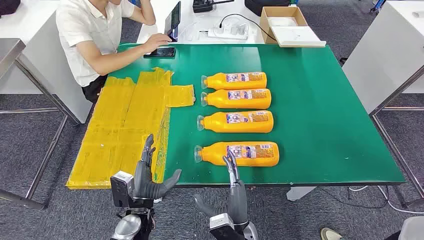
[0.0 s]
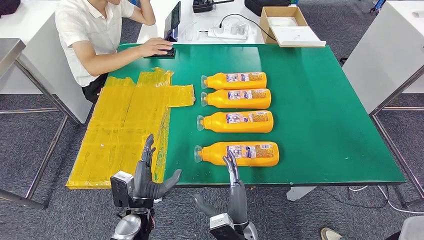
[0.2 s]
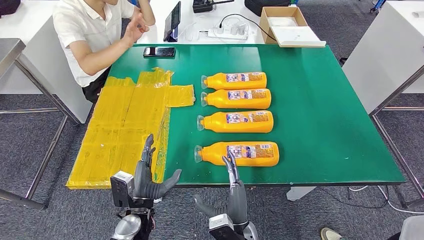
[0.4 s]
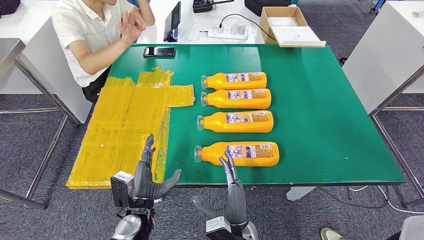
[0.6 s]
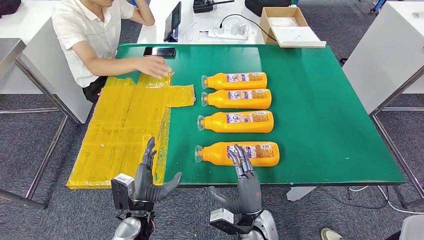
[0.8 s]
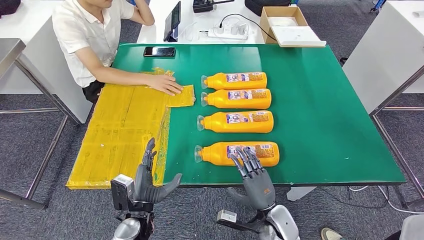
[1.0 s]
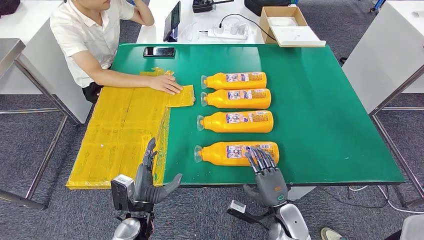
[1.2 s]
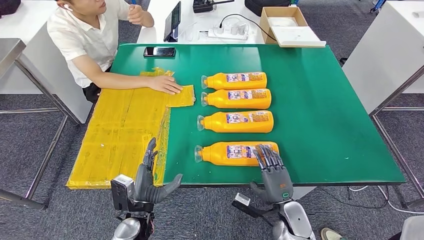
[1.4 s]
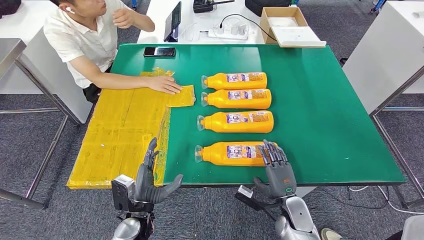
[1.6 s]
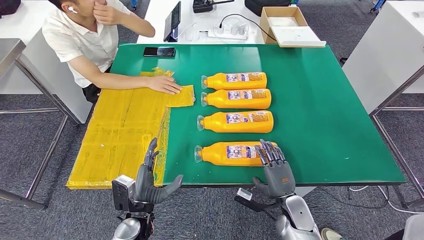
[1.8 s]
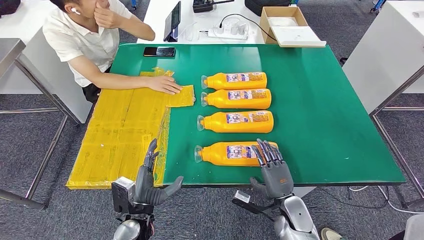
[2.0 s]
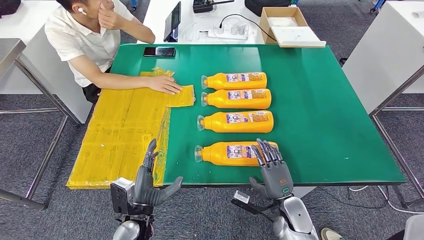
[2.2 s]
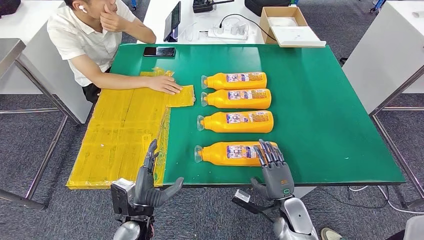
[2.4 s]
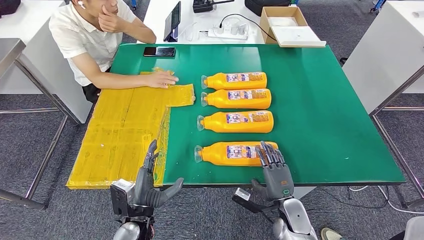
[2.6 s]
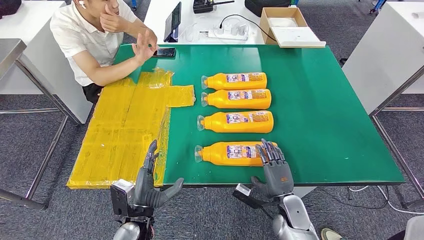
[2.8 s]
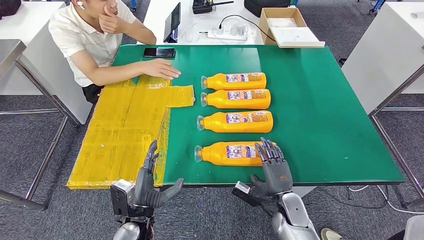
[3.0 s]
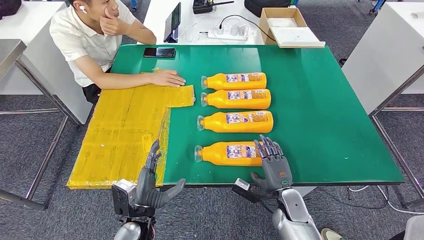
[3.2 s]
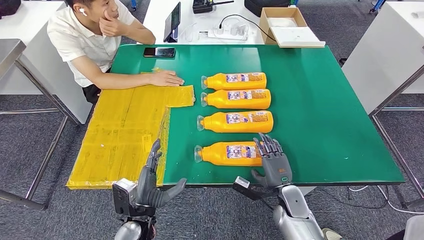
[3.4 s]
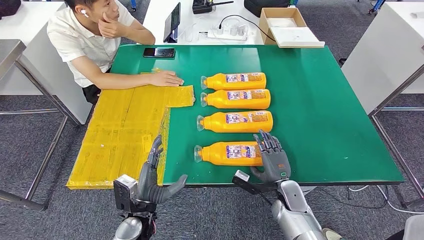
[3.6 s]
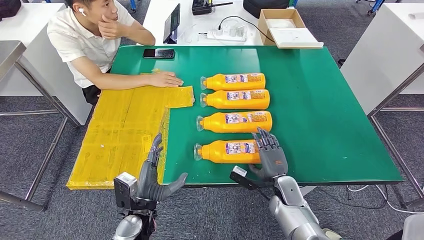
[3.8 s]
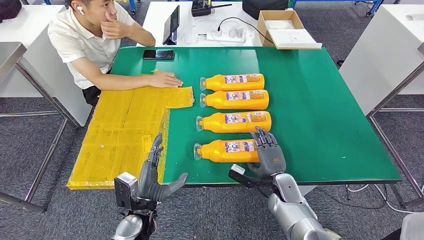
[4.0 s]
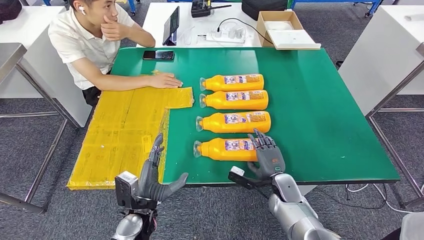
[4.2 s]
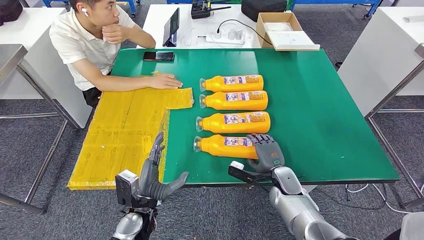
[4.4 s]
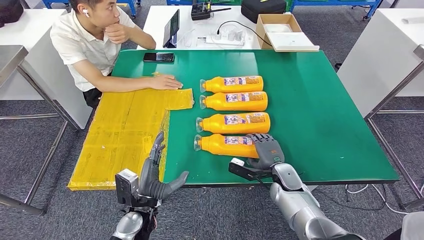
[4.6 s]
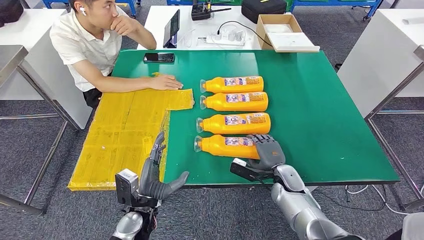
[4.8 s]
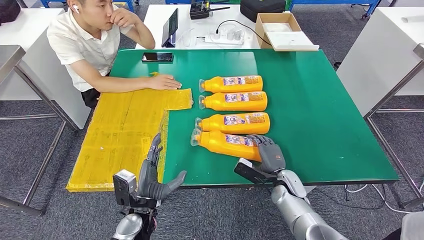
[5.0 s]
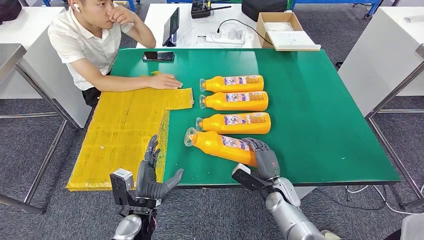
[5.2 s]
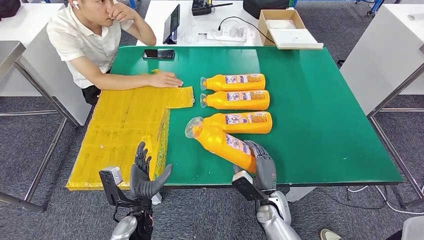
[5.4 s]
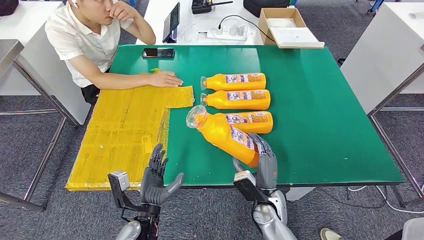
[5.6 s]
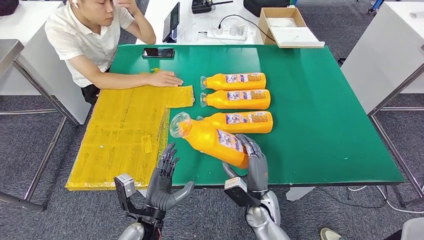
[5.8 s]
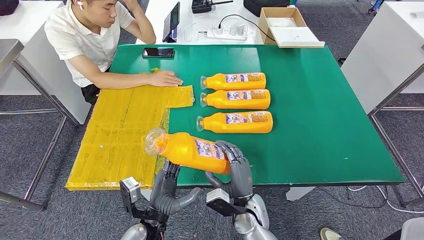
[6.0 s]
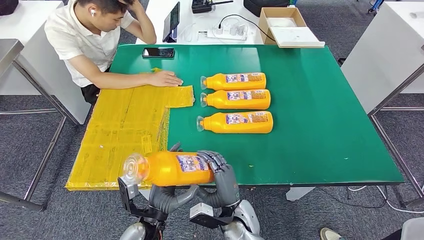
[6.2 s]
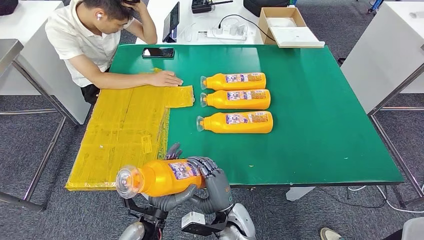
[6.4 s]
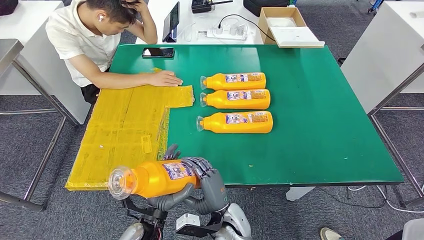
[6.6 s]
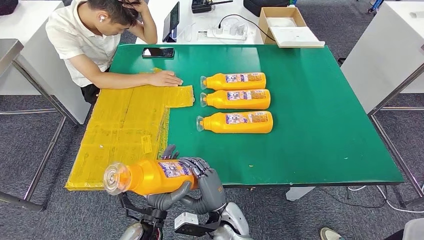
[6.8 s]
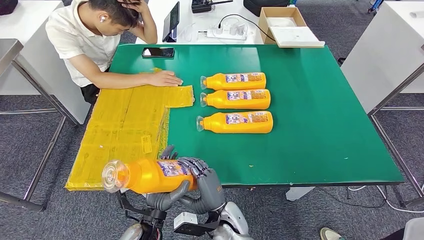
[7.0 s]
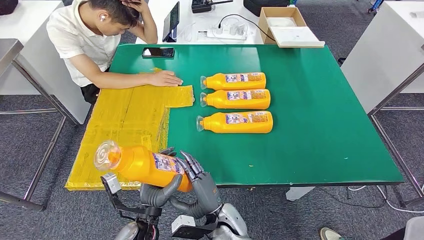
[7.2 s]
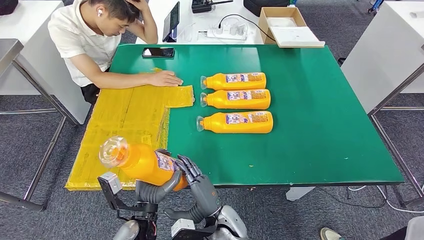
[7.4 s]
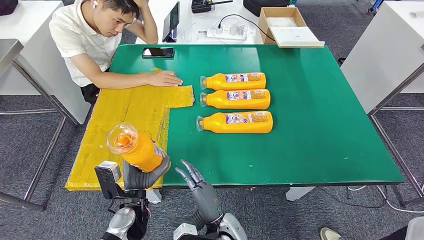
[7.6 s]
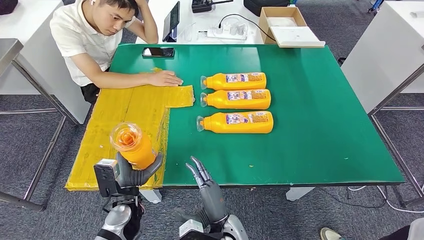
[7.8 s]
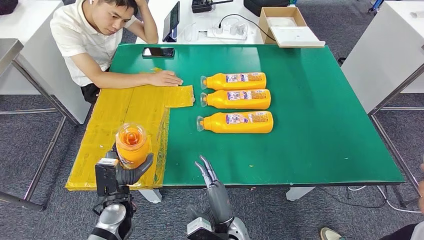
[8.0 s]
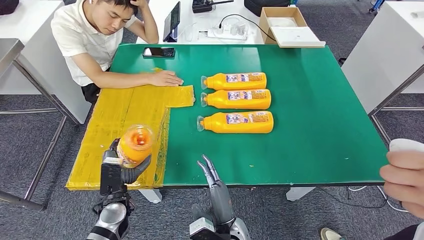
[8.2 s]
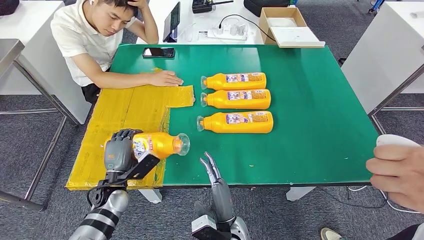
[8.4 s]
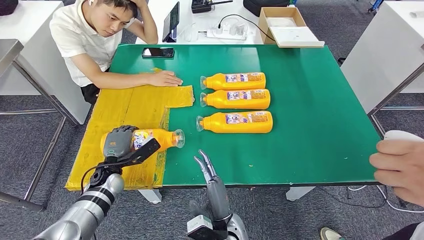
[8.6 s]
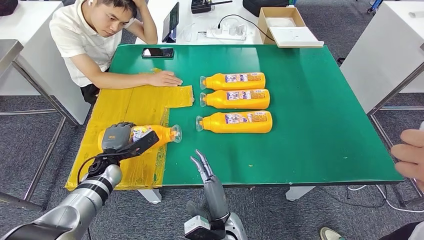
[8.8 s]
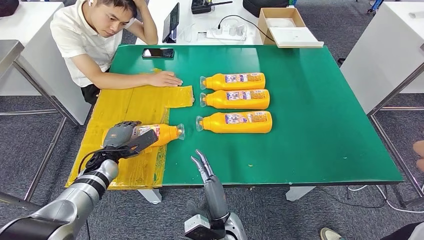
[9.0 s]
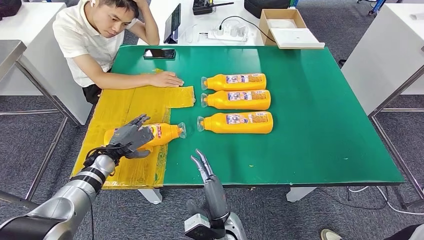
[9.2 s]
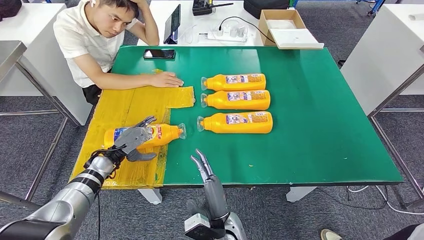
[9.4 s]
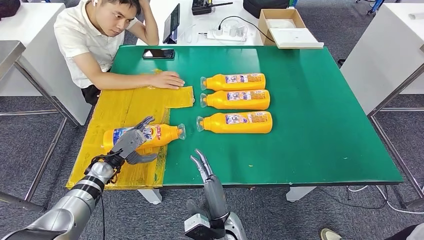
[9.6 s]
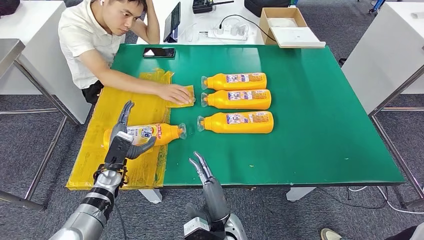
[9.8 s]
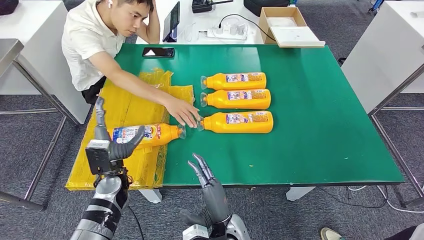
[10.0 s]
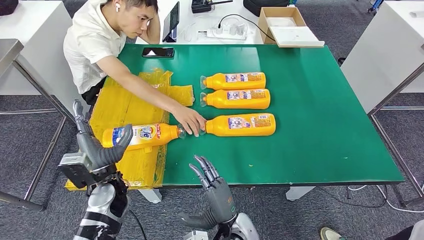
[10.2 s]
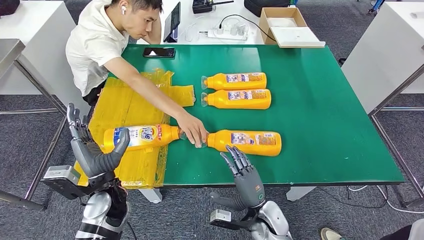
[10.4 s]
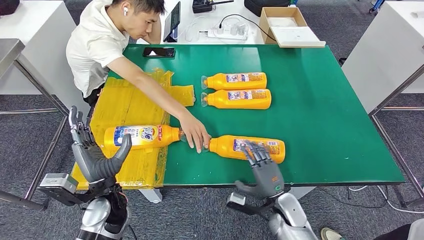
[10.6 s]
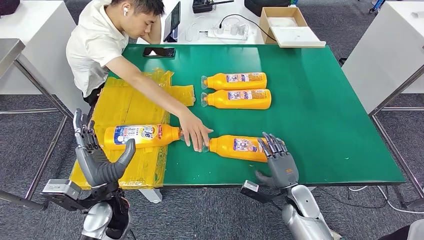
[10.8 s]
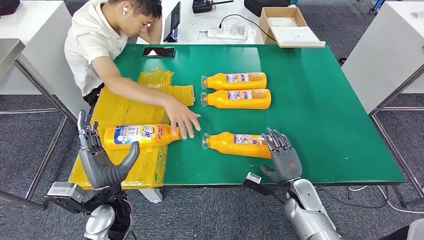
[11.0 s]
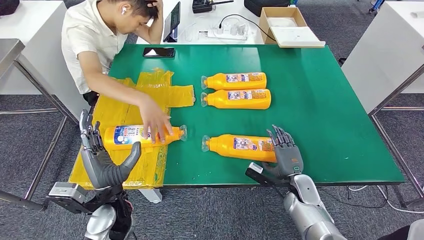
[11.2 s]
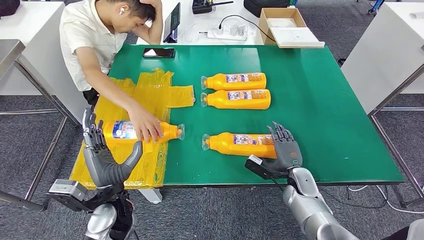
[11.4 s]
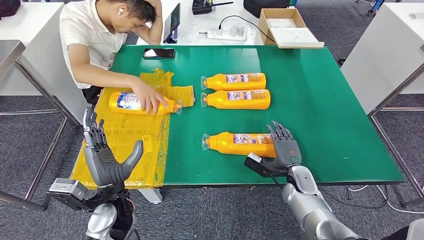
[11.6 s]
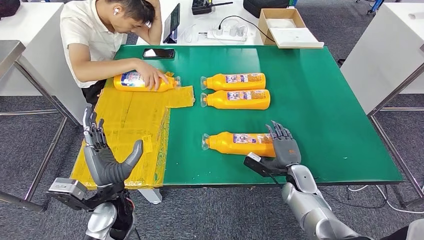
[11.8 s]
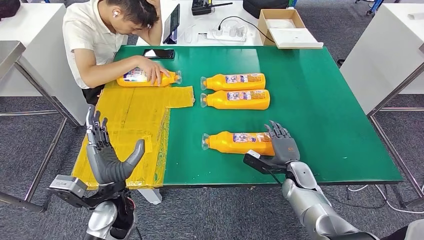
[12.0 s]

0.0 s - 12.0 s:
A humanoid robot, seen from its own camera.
Step, 0.0 s - 5.4 s: Take the bottle from the table.
Step, 5.8 s - 10.2 s: Flip the bottle to face forward.
1.6 s - 3.0 s: The hands make only small movements.
6.0 s - 7.6 s: The left hand ends up about 5 cm from where it was; the right hand goes approximately 5 cm to the left.
7.6 s - 9.0 s: The left hand is displaced forward and to the left by about 20 cm.

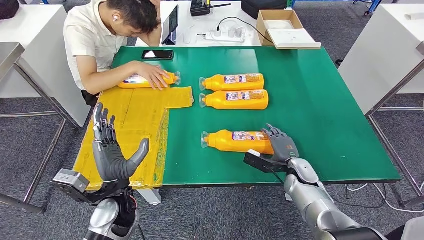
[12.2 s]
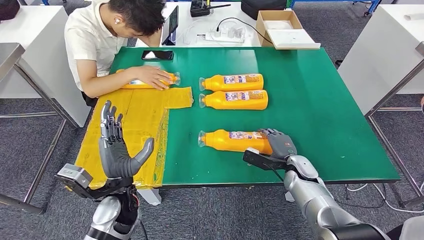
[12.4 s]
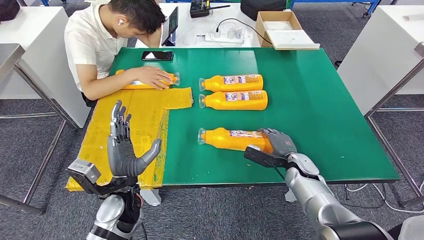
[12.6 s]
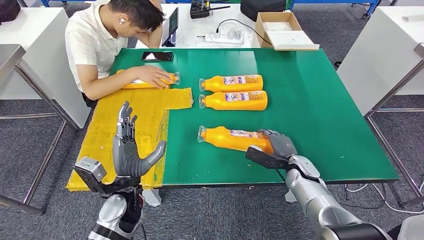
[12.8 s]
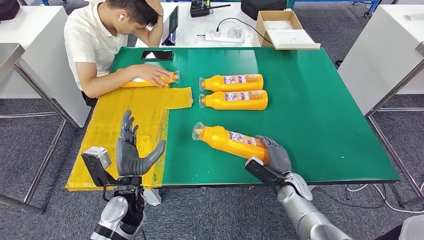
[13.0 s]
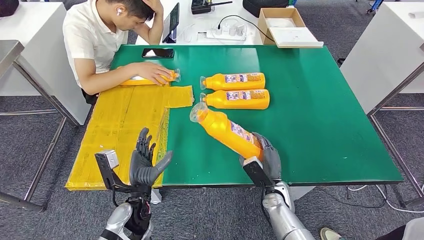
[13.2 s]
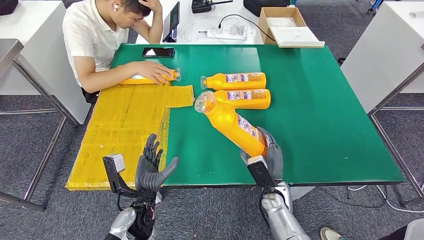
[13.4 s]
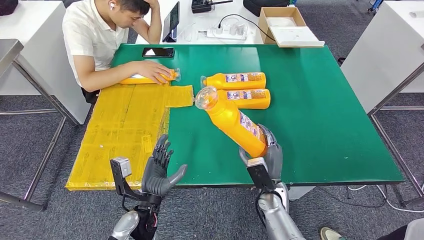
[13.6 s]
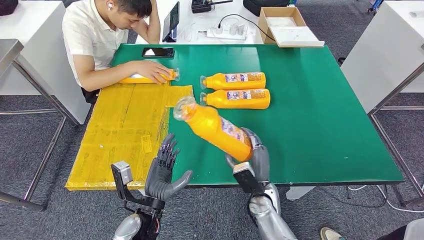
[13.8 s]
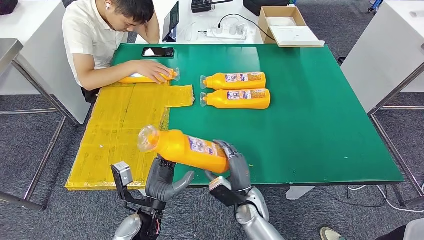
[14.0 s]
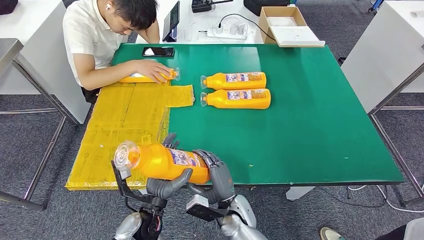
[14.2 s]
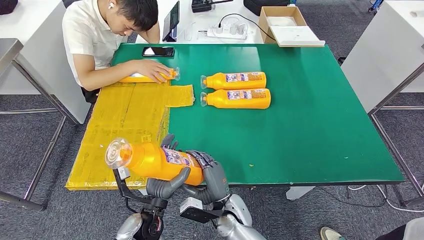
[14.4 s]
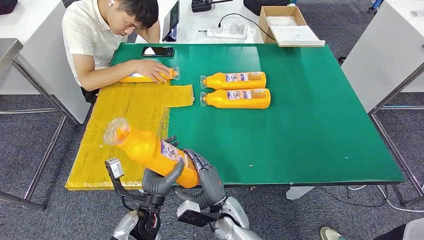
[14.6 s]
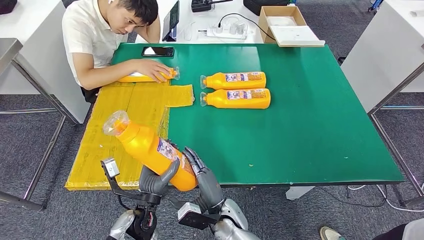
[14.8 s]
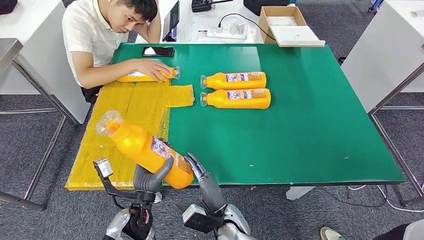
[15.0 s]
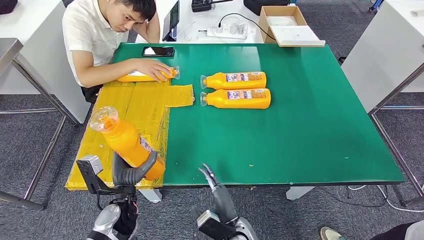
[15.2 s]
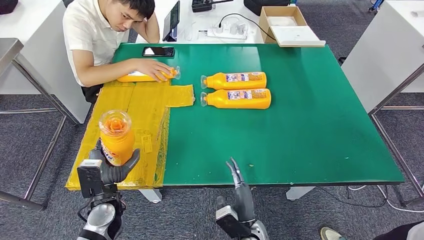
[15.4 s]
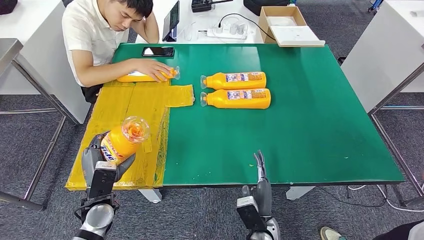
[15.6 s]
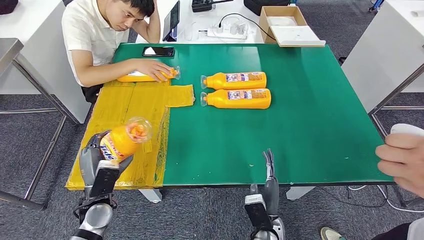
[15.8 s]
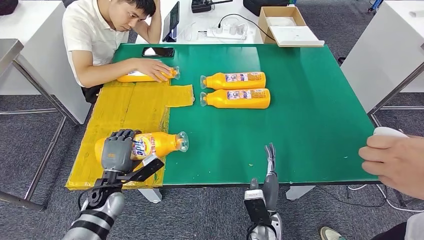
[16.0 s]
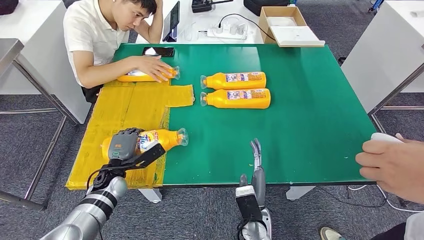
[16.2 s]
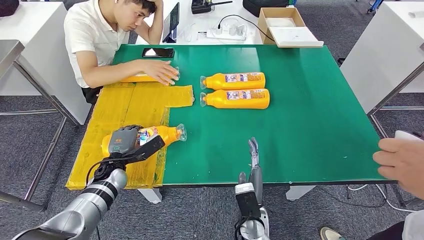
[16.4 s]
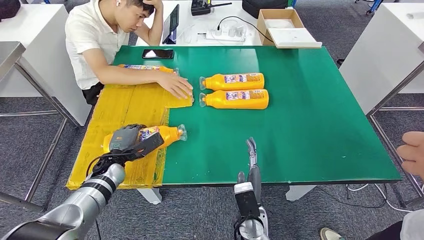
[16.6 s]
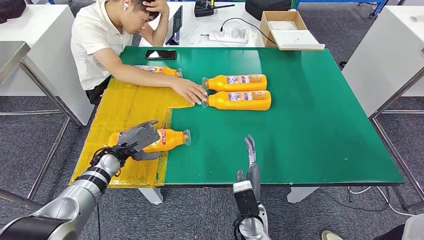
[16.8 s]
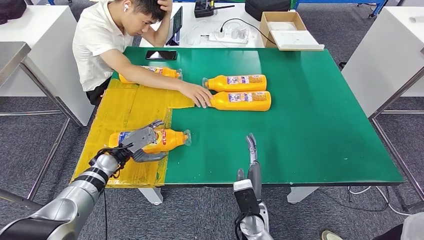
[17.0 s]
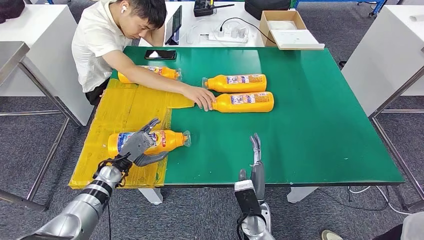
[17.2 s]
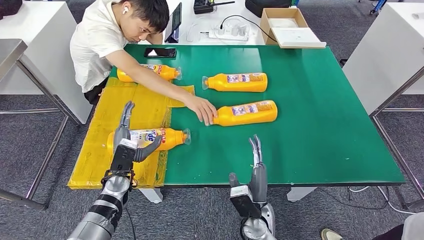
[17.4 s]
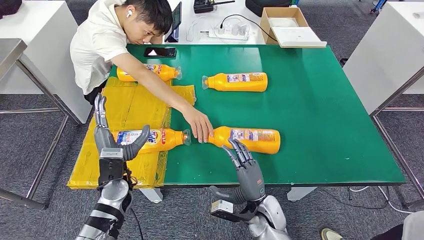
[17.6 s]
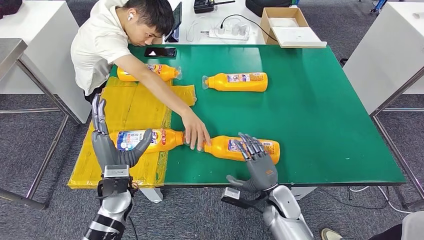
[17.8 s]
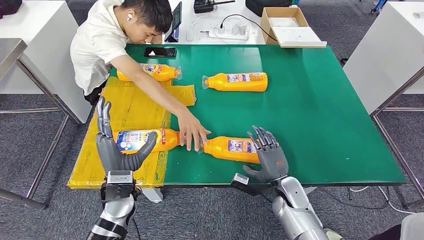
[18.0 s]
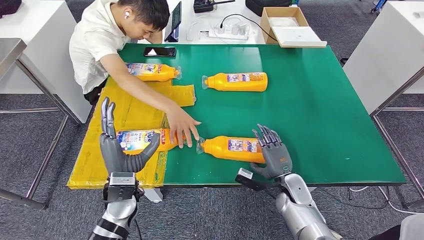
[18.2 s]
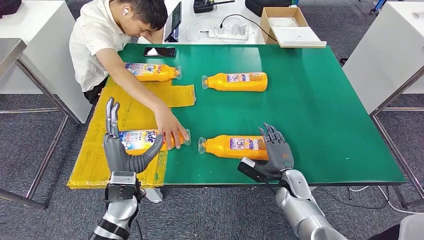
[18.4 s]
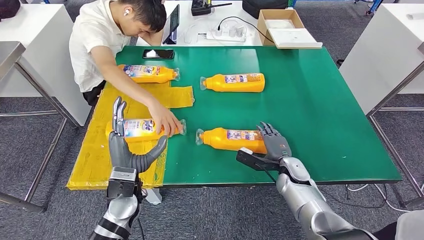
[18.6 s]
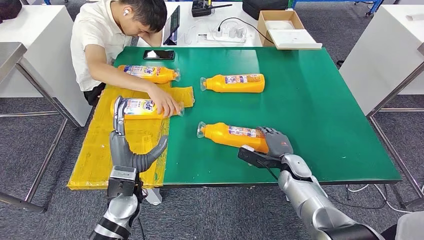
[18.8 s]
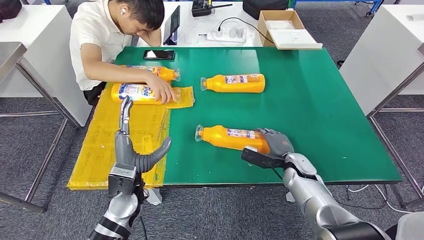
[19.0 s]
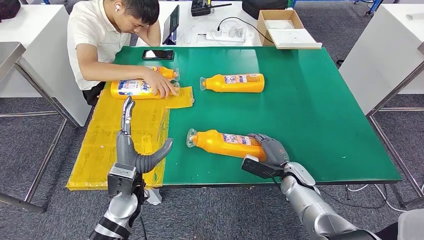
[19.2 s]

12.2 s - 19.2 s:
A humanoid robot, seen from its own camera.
Step, 14.0 s - 17.2 s: Flip the bottle to face forward.
13.6 s - 15.0 s: The right hand goes approximately 15 cm to the left and backward.
